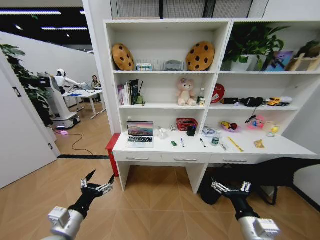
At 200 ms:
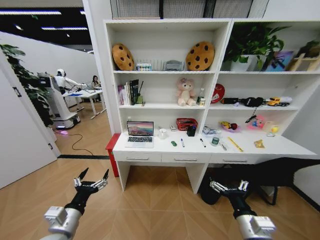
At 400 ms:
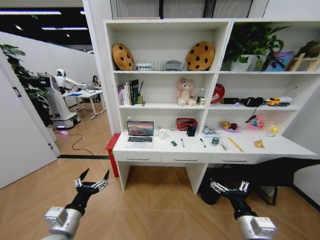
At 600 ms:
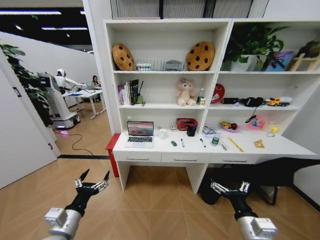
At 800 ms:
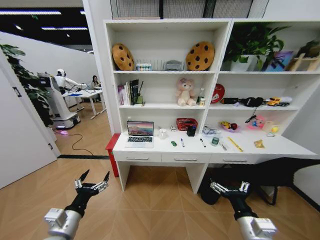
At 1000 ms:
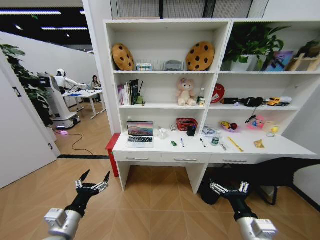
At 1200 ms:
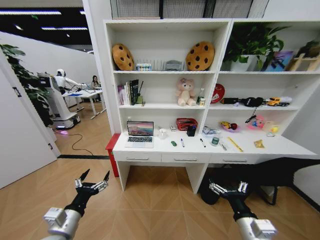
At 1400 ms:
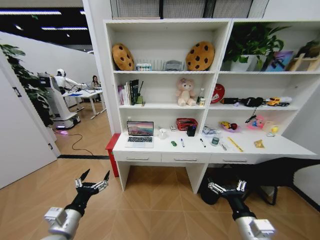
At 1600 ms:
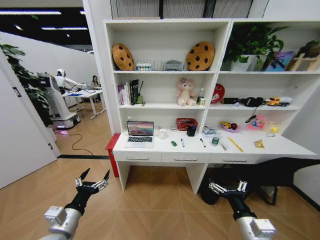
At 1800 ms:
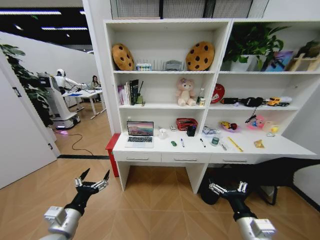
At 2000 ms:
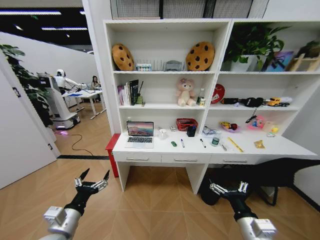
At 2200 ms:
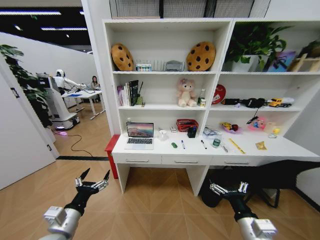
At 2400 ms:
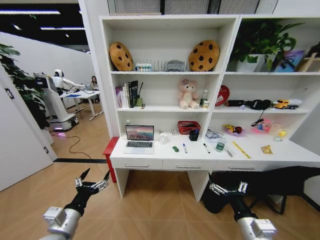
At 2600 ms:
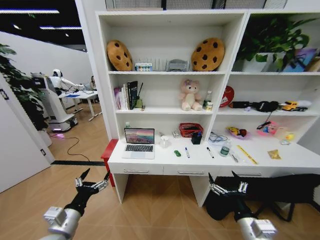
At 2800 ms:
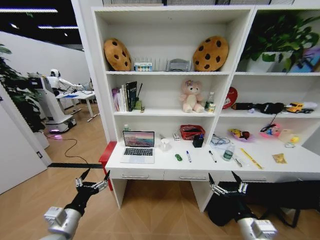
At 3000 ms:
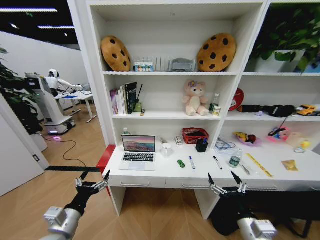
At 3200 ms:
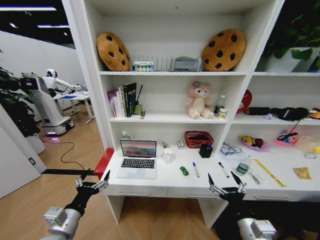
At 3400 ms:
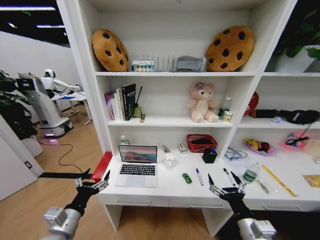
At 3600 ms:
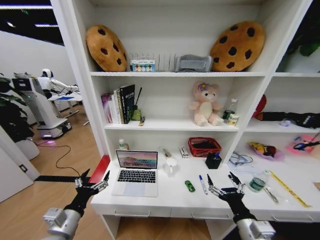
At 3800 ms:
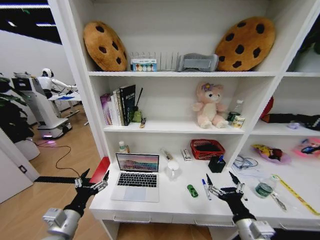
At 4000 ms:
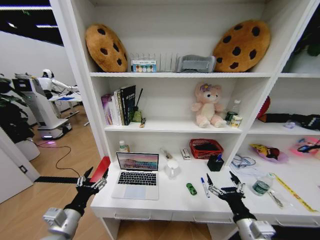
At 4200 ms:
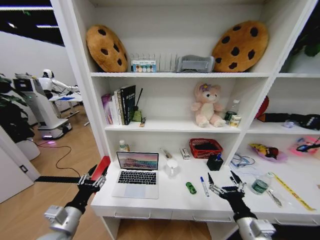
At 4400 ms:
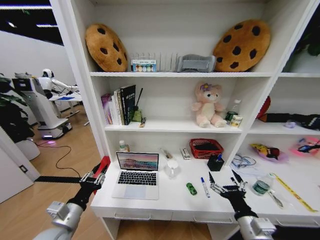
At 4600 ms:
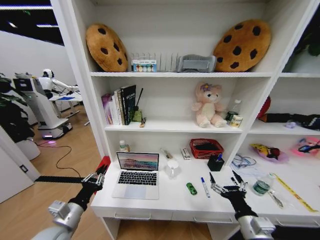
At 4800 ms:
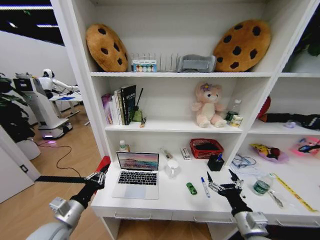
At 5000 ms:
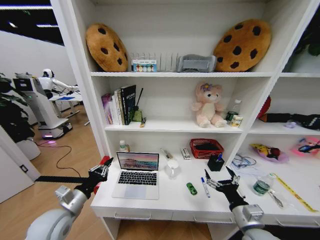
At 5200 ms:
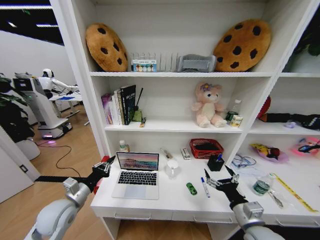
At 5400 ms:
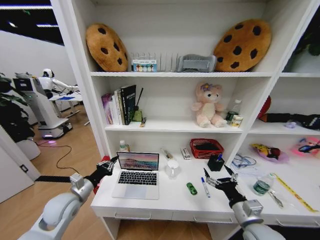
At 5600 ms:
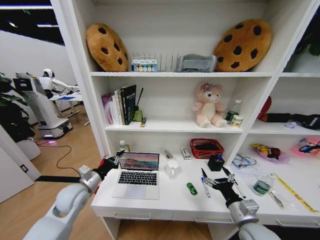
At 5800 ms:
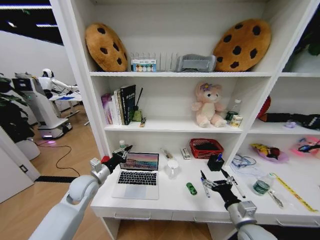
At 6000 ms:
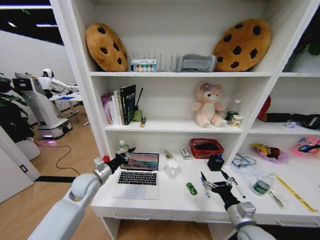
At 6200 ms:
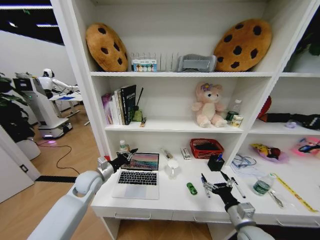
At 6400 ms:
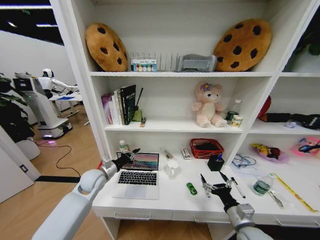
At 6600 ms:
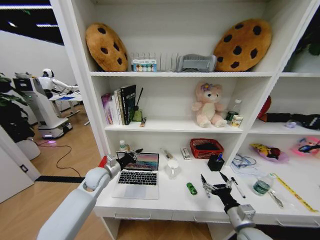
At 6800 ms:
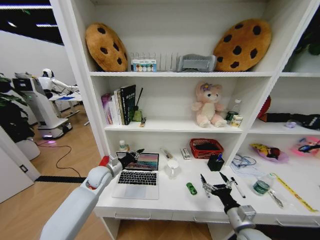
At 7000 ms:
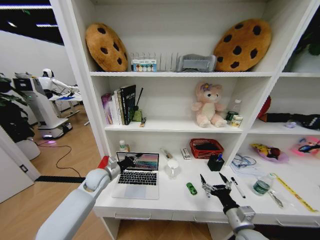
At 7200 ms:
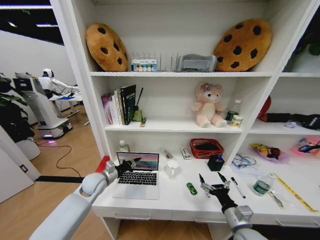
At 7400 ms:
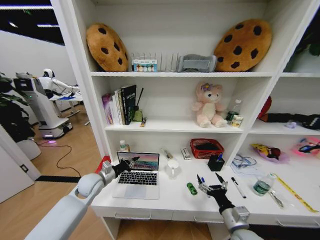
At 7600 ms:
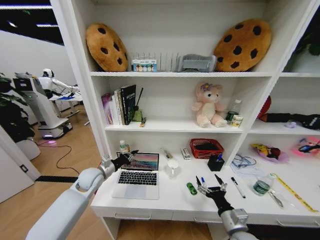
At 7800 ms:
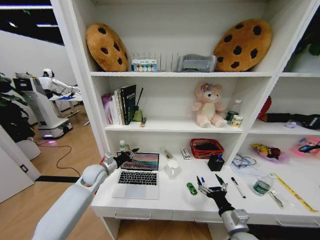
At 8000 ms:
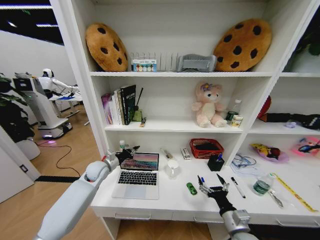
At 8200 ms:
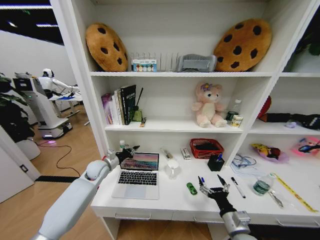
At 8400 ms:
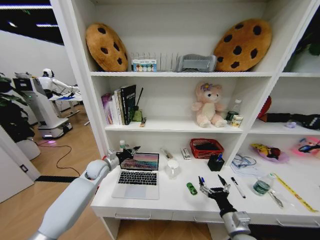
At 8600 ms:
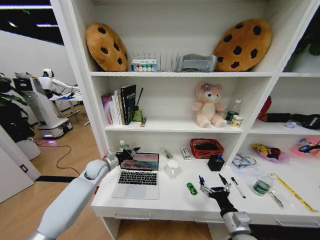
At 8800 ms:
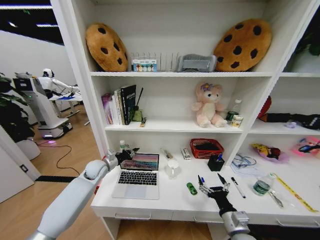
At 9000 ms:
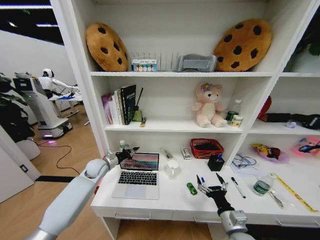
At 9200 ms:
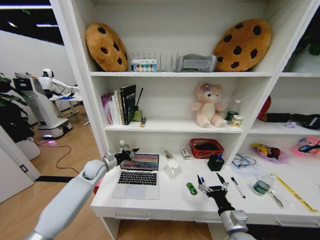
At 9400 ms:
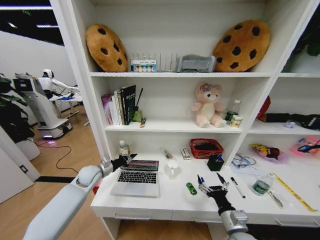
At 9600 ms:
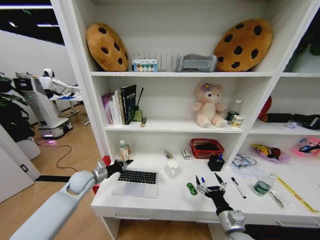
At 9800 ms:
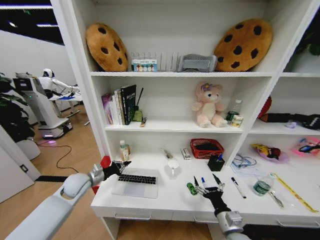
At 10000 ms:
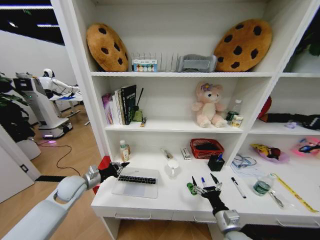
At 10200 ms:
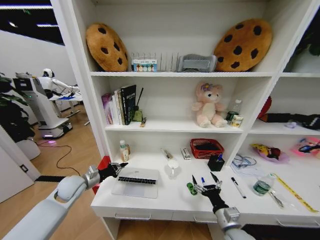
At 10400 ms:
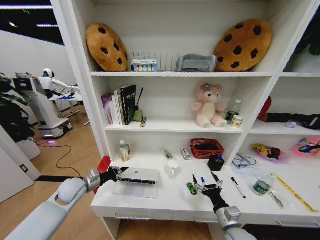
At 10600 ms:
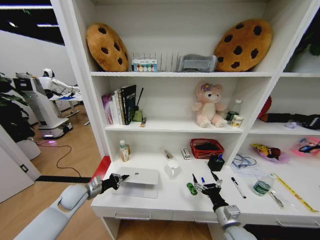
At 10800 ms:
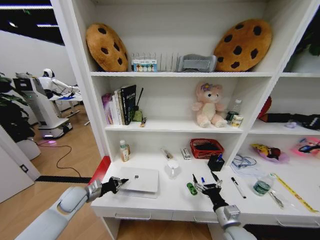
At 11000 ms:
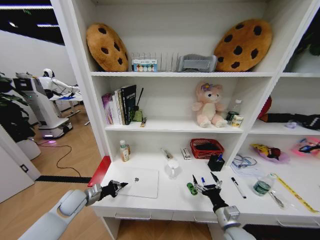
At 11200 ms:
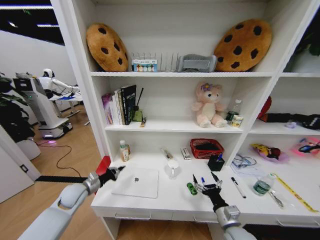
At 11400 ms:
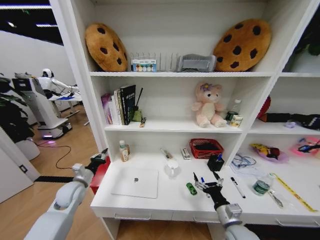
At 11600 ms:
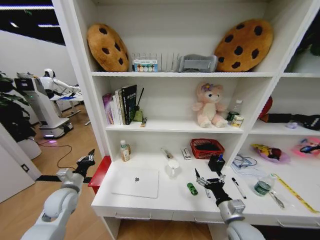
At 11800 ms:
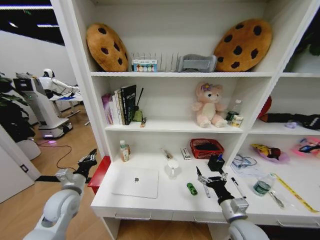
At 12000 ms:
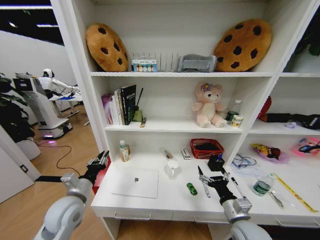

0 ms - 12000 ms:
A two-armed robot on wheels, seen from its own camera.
Task of the whole recording: Organize the objects on the table.
3000 ms - 4400 ms: The left gripper closes up.
4400 ms - 6000 ms: The left gripper heads forward, covering approximately 20 cm, and closes. The right gripper moves roughly 5 cm.
7600 ms - 9000 ms: The left gripper heads forward, covering about 5 cm.
9000 ms - 10400 ms: The left gripper shifts roughly 10 cm backward and to the left.
10400 ms - 12000 ms: The right gripper shifts by approximately 5 cm. Meanwhile the left gripper is displaced backward, to the right and upward by some 15 cm.

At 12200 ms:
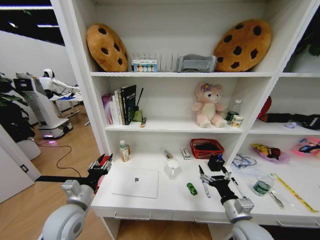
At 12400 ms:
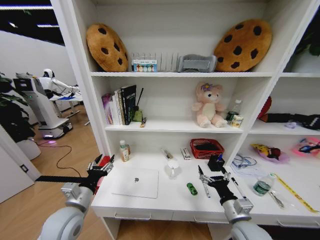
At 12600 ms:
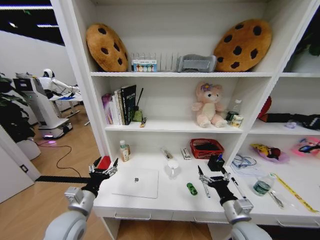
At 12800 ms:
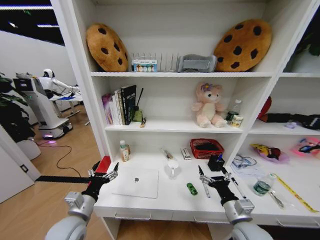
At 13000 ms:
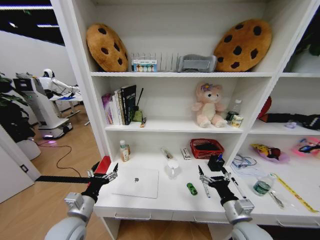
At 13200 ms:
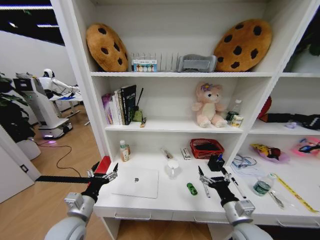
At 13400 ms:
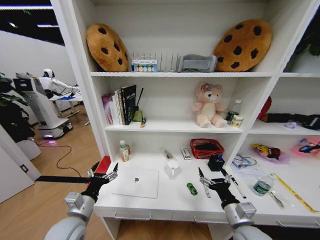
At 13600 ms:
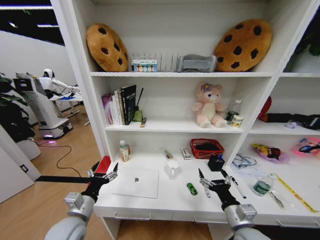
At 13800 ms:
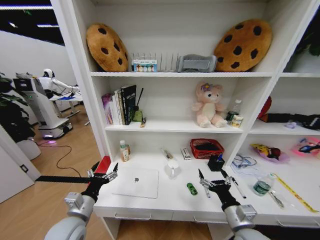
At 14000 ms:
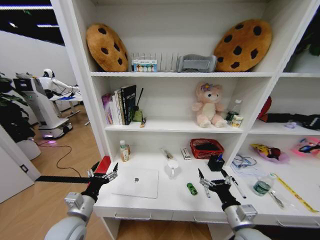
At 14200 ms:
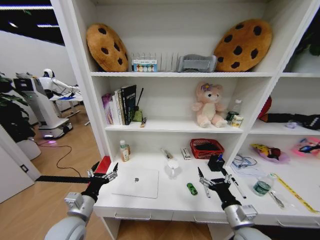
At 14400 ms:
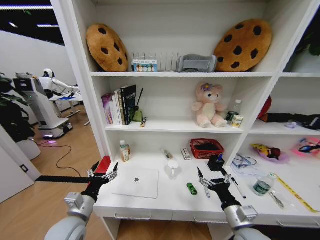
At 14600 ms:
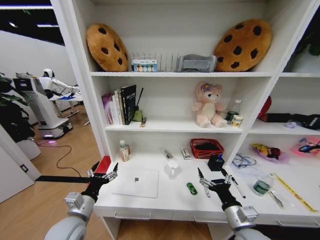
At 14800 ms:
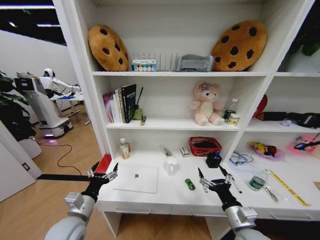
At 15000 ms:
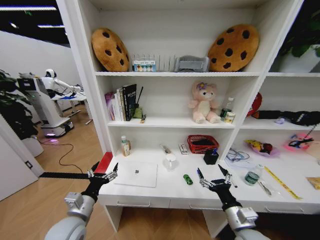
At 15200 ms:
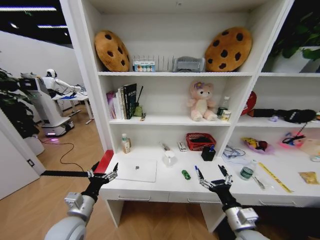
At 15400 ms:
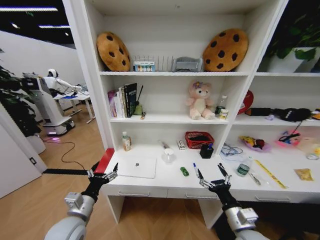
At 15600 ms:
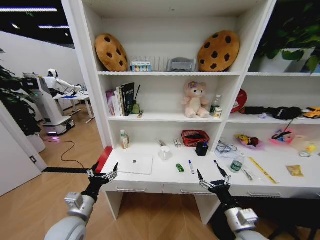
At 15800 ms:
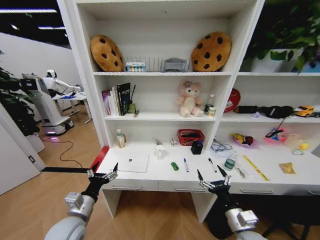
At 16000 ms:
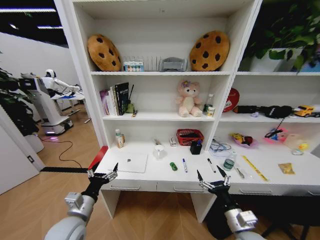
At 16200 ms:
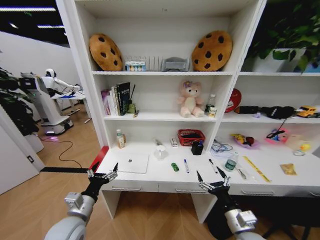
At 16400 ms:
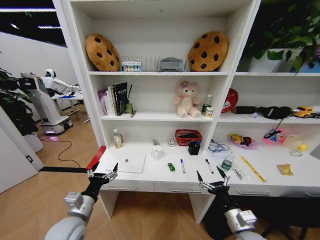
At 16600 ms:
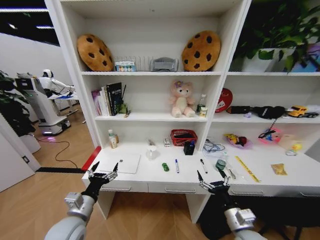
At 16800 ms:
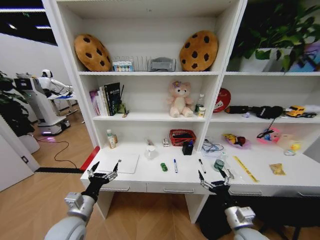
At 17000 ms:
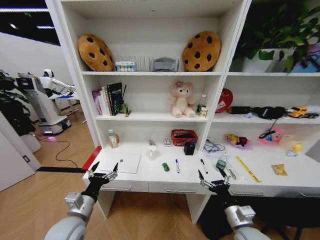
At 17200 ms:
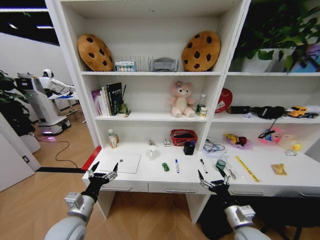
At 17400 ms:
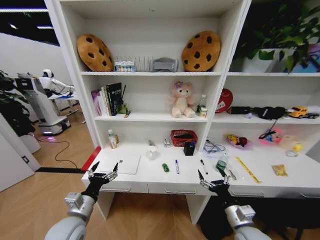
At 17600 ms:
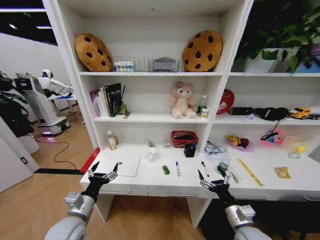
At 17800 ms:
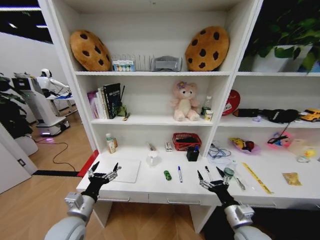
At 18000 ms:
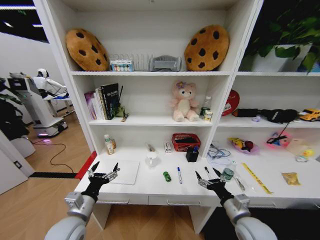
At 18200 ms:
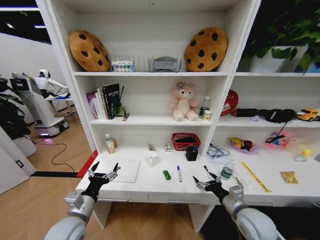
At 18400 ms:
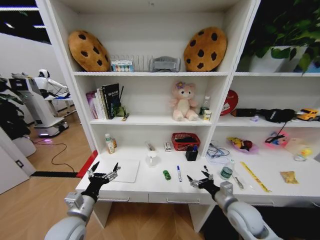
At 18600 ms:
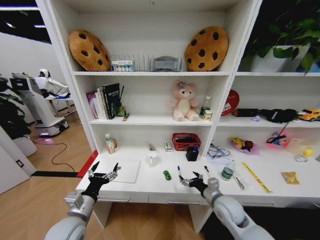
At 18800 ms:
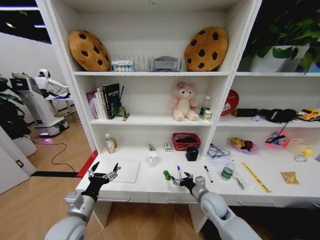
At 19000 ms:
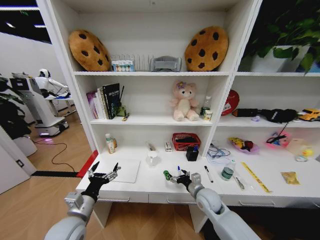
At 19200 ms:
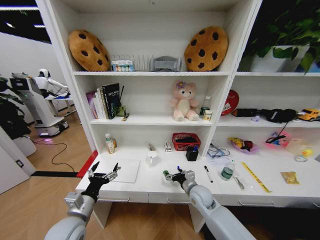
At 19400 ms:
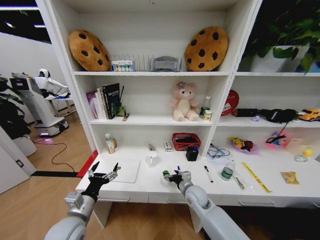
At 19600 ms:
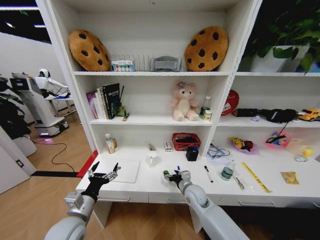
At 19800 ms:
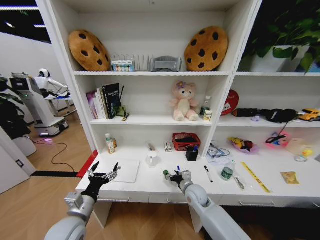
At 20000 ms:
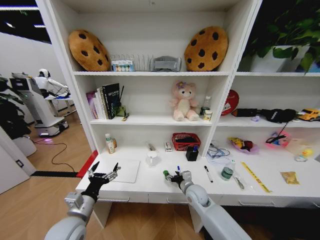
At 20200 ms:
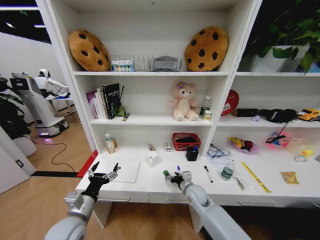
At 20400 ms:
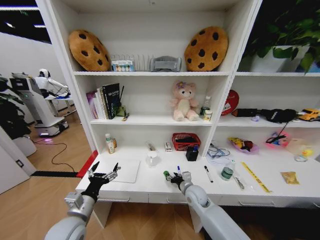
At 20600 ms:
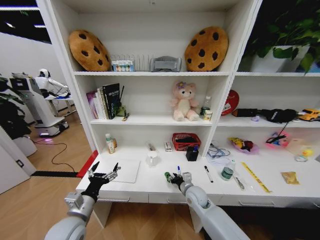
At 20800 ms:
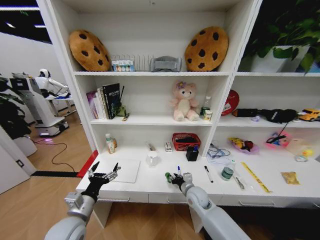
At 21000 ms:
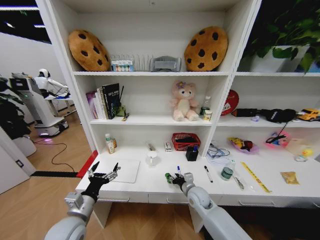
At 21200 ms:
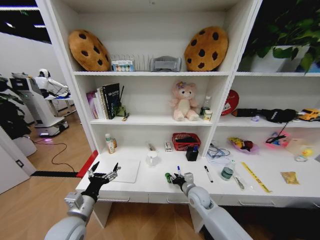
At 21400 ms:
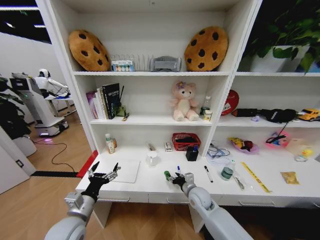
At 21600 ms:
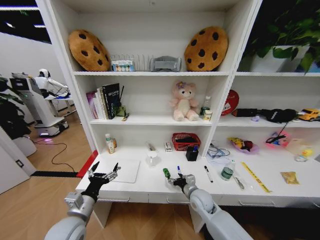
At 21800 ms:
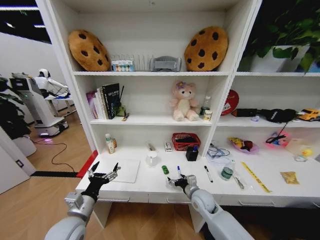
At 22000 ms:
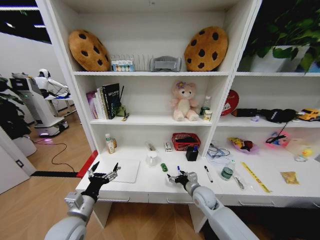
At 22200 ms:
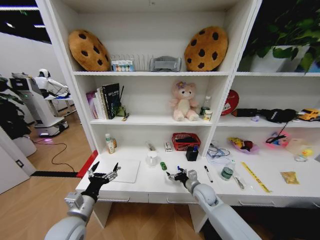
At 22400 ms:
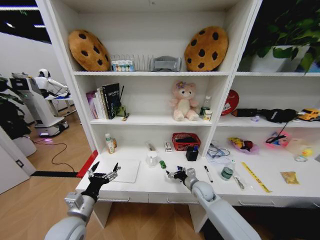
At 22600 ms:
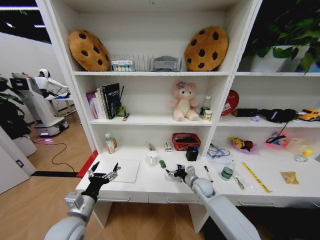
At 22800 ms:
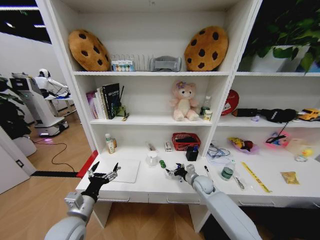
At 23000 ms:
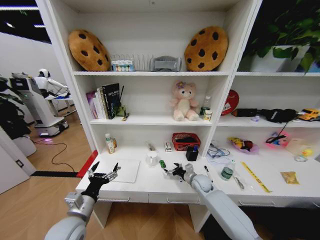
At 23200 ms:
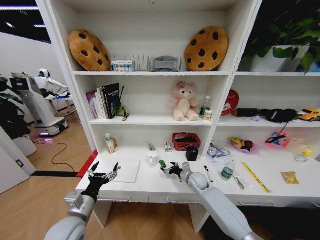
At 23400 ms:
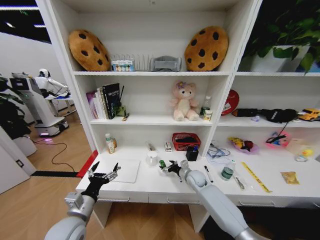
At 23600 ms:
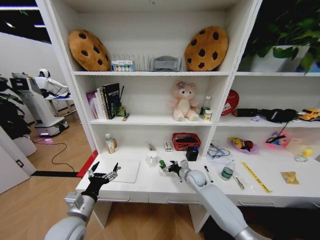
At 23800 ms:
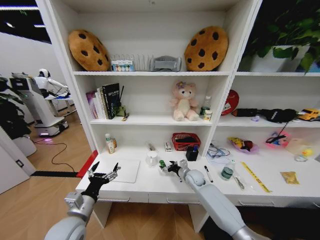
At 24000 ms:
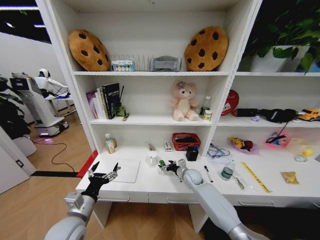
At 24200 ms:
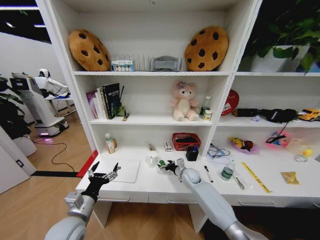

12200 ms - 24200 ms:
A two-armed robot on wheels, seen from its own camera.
Task of the whole recording: Organize the objects on the table.
12200 ms - 13800 ms: The left gripper opens its fingers.
16600 ms - 18200 ms: The right gripper heads forward, covering roughly 5 cm.
18200 ms - 19800 ms: The right gripper heads to the left, forward and downward, covering approximately 20 cm.
19800 ms - 21200 ms: The right gripper closes.
21200 ms - 22600 ms: The right gripper heads forward, covering about 5 cm, and opens.
22600 ms - 24200 ms: The right gripper is displaced forward by approximately 5 cm.
